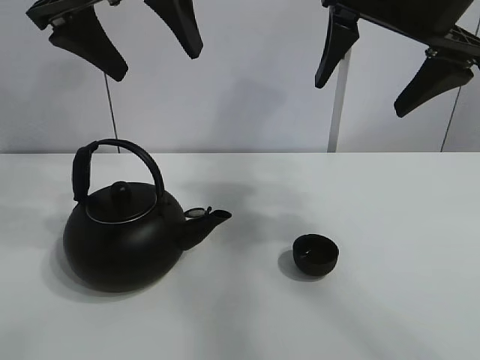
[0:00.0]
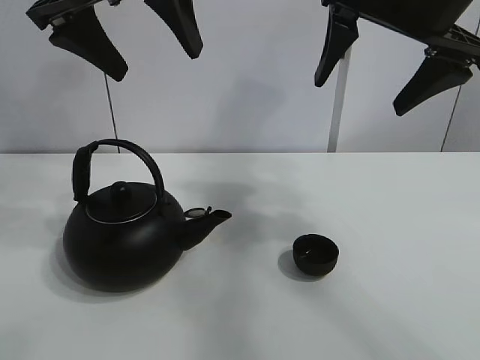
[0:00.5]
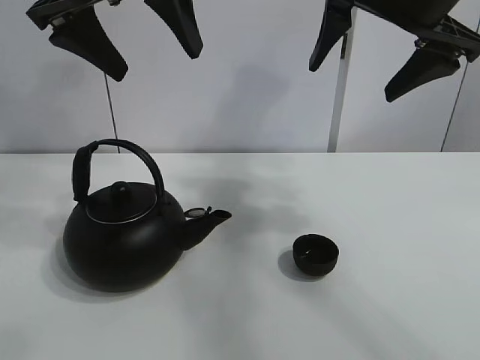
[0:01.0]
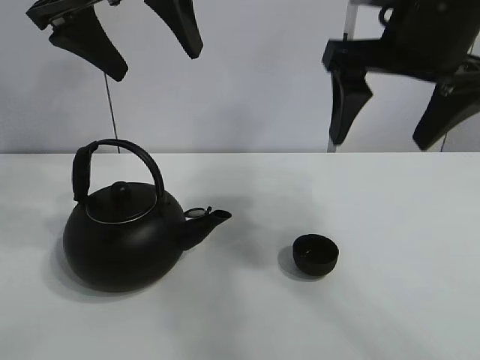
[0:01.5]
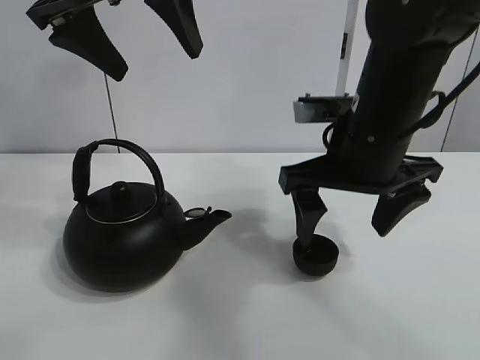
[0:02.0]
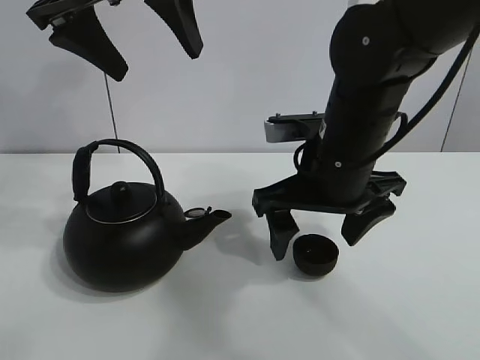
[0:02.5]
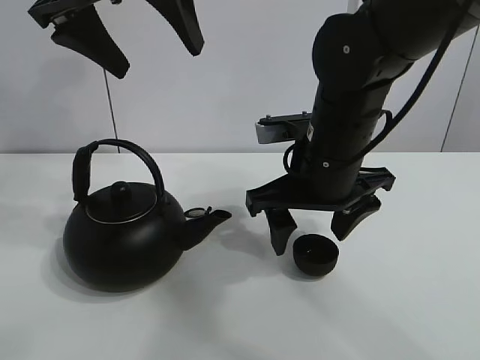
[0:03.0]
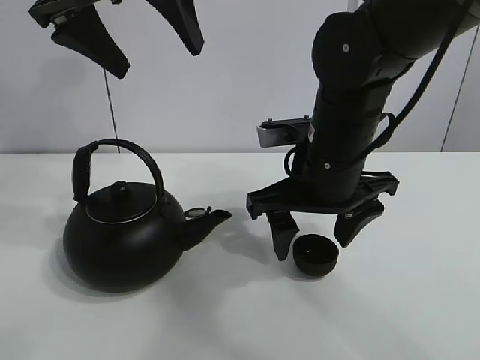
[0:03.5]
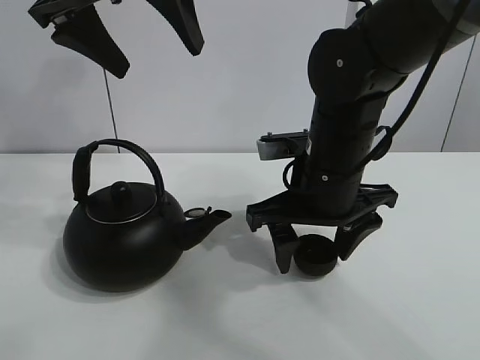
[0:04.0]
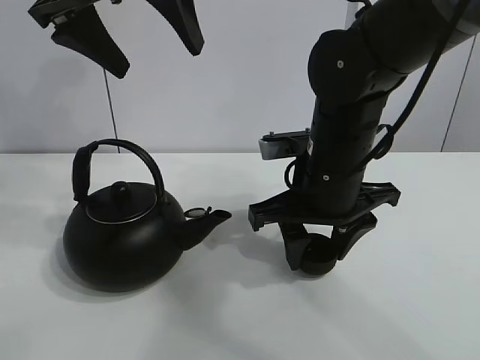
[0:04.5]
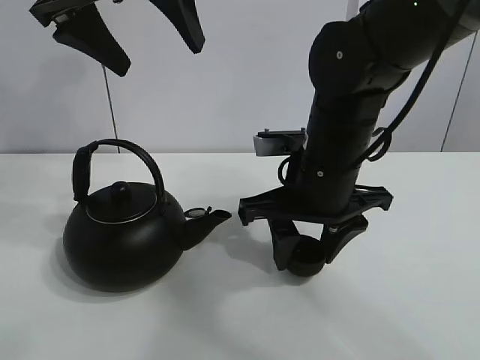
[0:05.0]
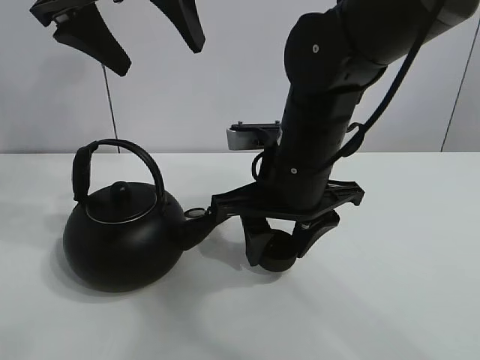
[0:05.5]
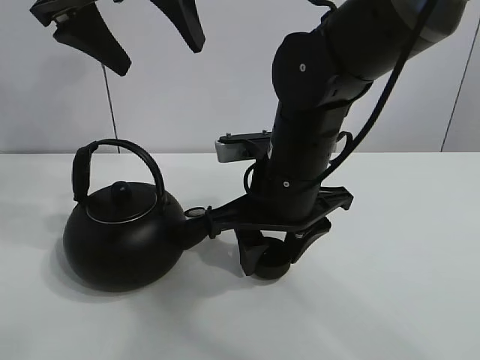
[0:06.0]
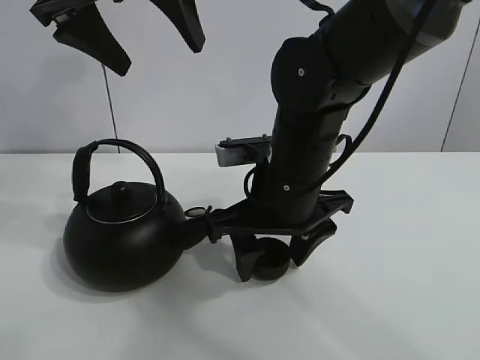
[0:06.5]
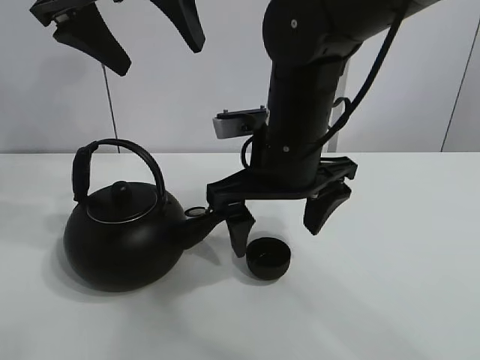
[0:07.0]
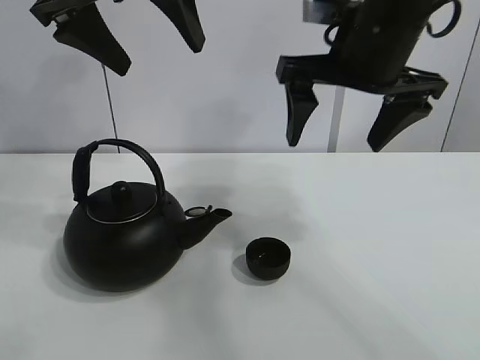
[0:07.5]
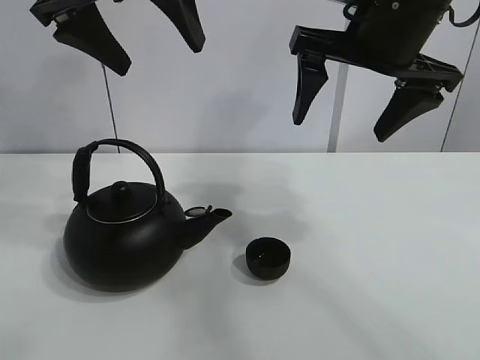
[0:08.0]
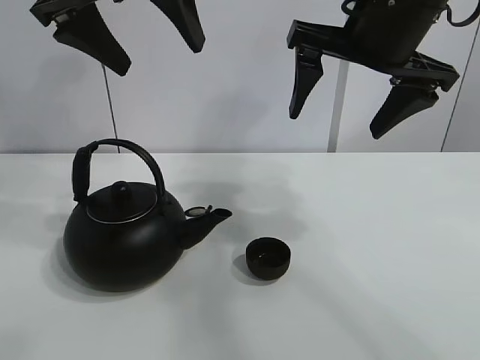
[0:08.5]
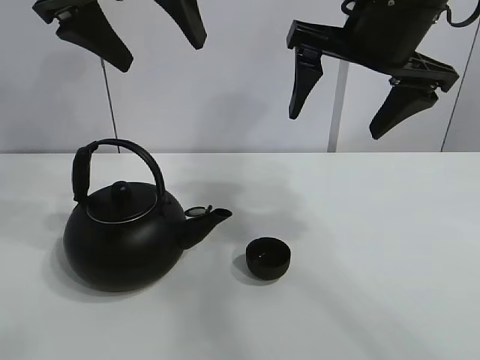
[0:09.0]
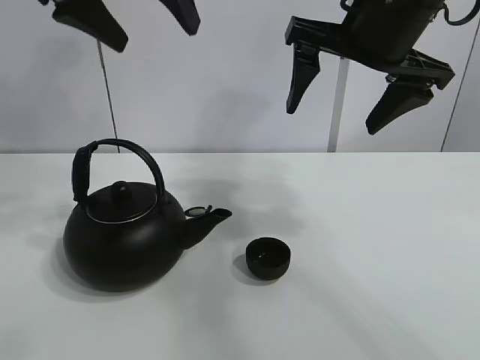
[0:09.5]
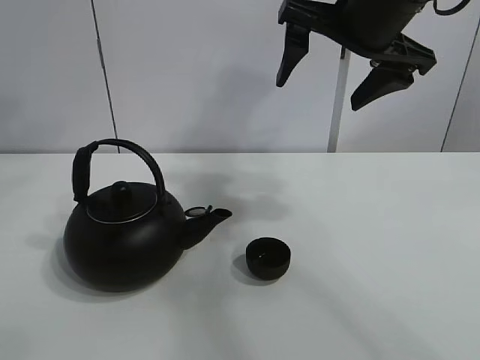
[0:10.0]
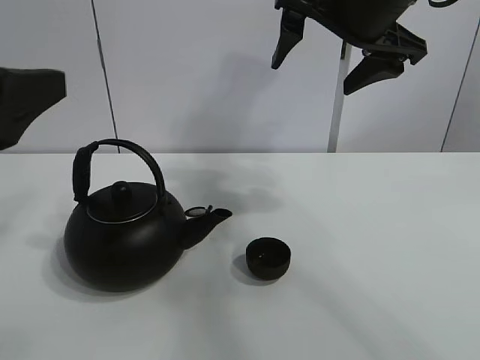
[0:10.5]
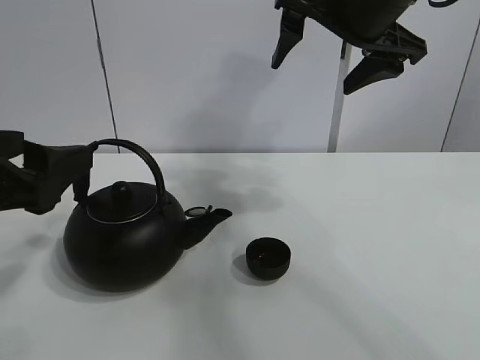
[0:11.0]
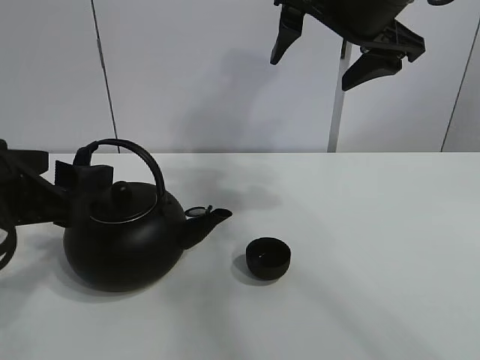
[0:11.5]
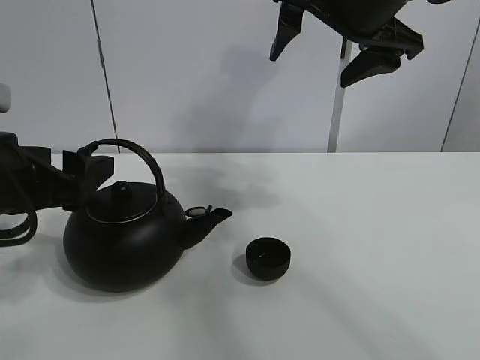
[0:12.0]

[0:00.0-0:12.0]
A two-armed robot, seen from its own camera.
Task of the whole recording: pour tea into the teacup.
Step, 0:00.0 to 0:04.0: Pick up the teacup with the right gripper.
Step, 0:04.5 to 0:06.5: Place the teacup in the center of view with the right gripper.
0:02.0 to 0:04.0: The right gripper moves approximately 5 cm, and closes.
0:04.0 to 0:06.0: The right gripper closes.
0:06.0 to 0:08.0: The right gripper goes roughly 15 cm upward and to the right, and opens up.
0:08.0 to 0:10.0: The left gripper heads backward and to the left, covering some 10 cm.
0:10.0 to 0:12.0: The left gripper shifts about 25 cm downward.

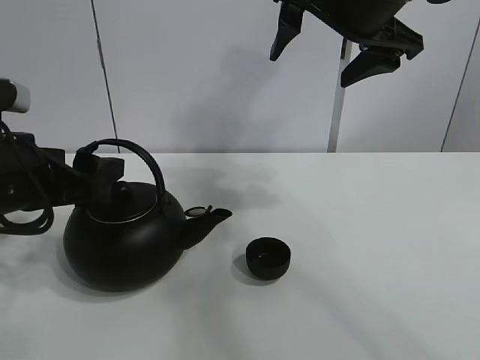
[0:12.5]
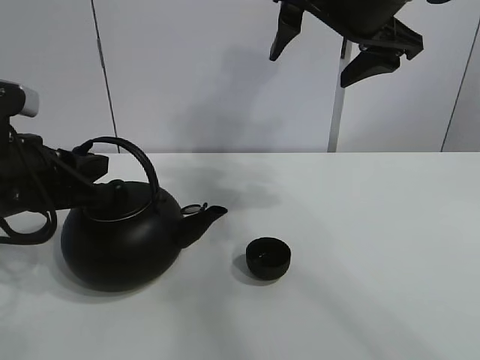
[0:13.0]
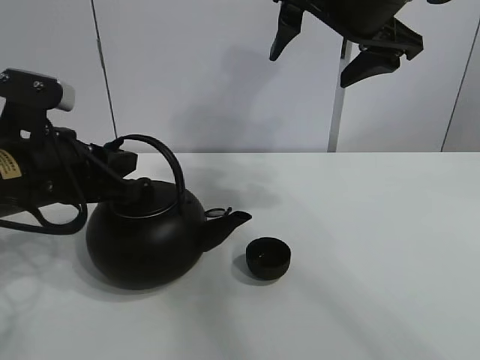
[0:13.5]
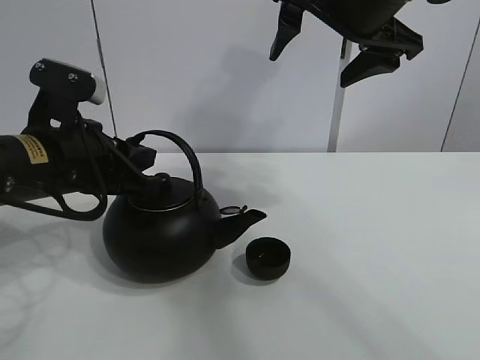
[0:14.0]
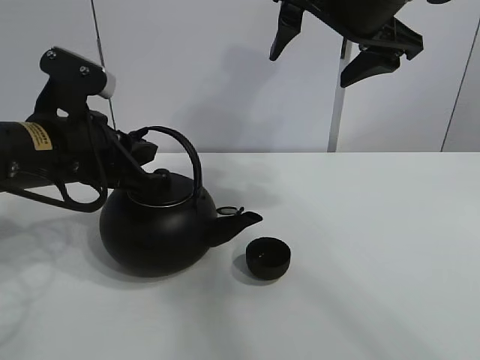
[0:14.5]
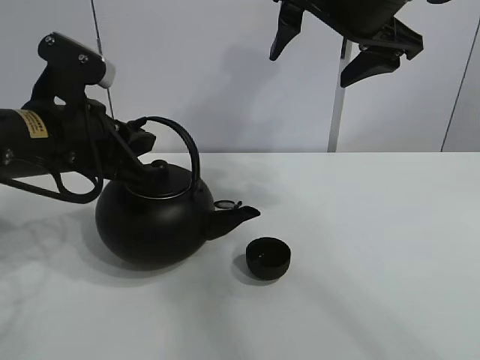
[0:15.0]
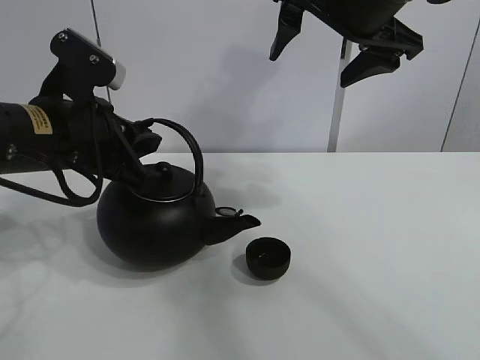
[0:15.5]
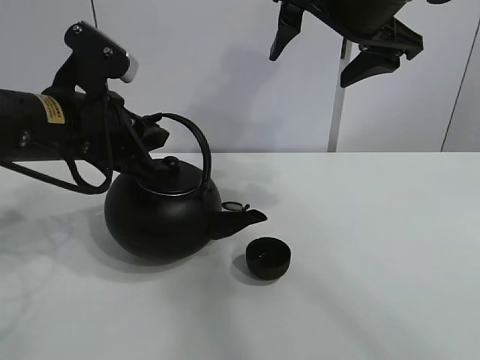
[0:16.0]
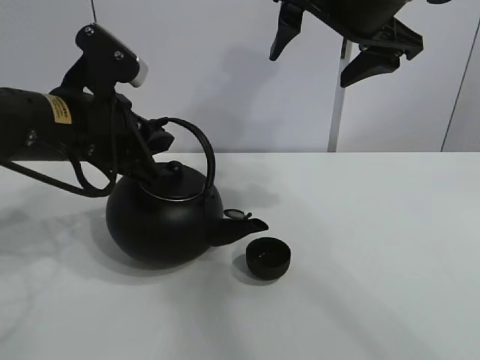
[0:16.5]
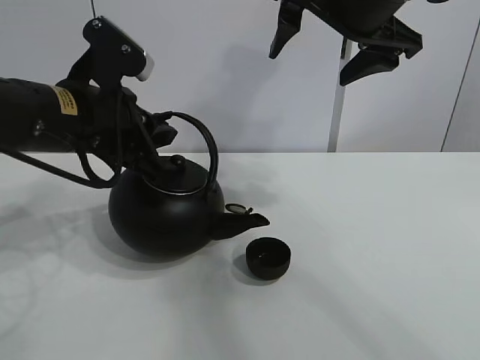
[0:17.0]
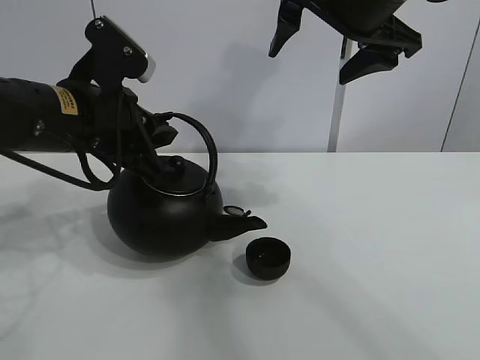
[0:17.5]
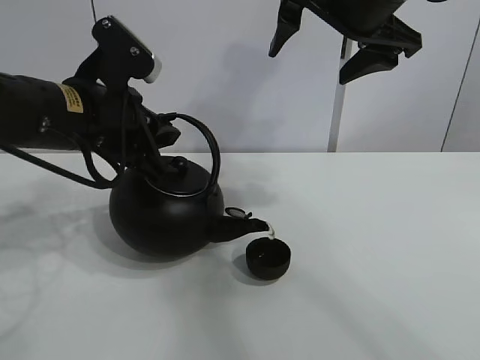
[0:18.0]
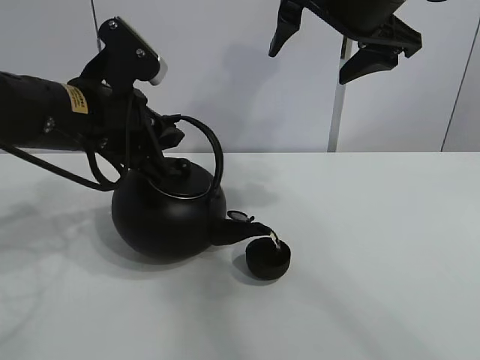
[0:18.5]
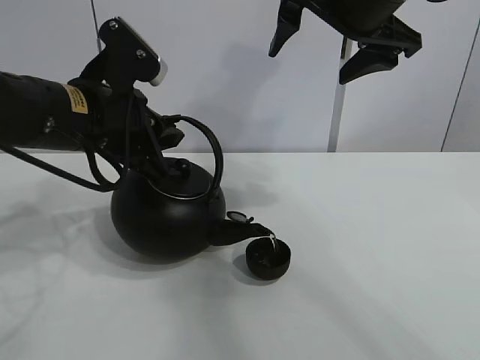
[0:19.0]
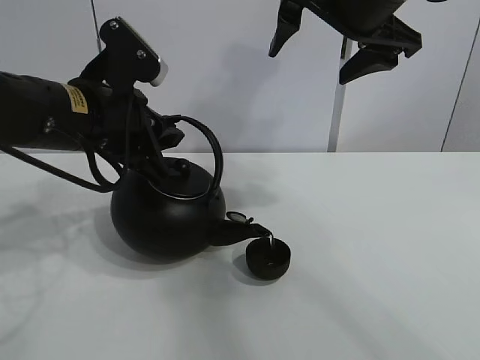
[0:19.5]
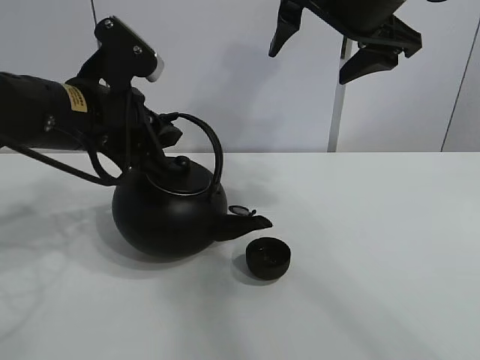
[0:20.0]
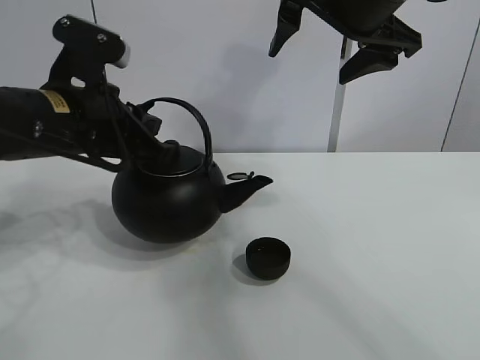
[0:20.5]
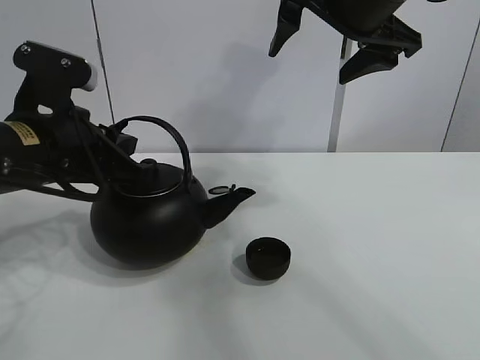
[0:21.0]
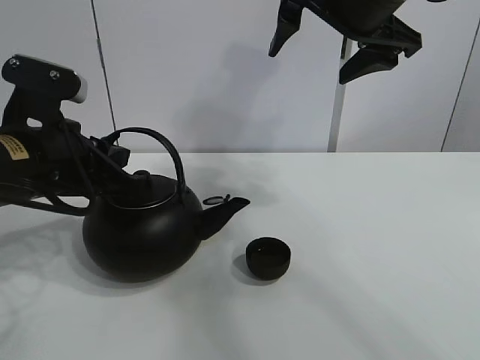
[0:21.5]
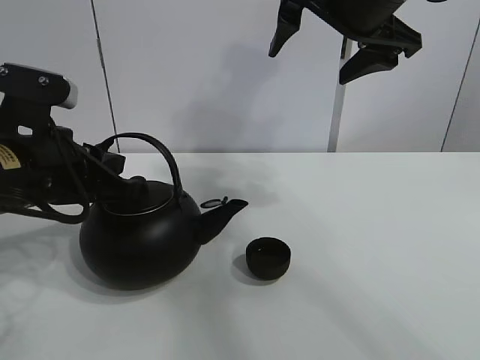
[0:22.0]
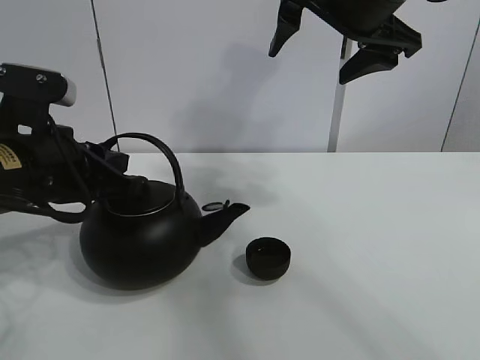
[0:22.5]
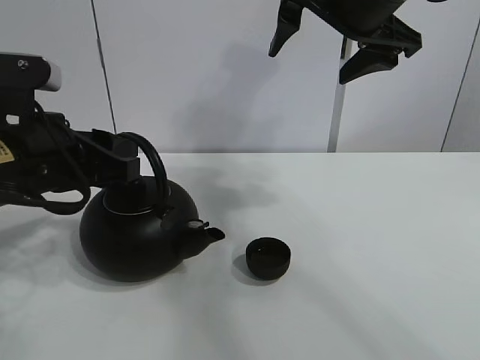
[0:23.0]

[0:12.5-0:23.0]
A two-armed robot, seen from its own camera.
Task of the whole recording: pour tea into the teacup.
Step, 0:13.0 to 0:20.0: Pour tea into the teacup with the left gripper.
0:12.5 to 0:14.5: The left gripper changes place by some 5 cm, and closes.
0:14.5 to 0:19.0: The grippers make only small movements.
0:21.0 to 0:23.0: The left gripper opens its fingers.

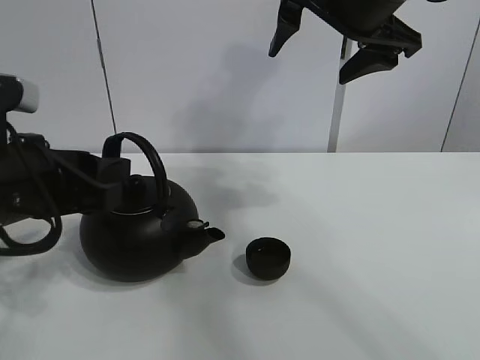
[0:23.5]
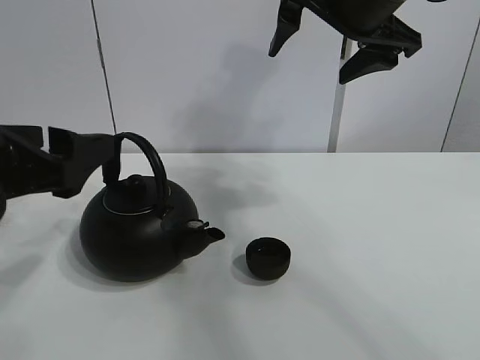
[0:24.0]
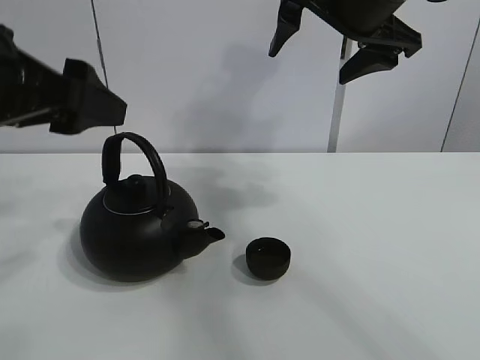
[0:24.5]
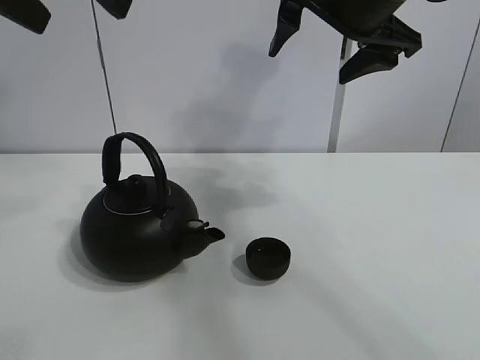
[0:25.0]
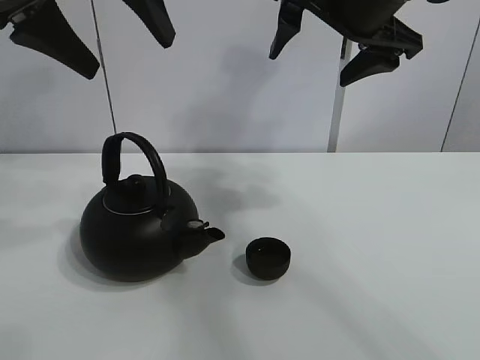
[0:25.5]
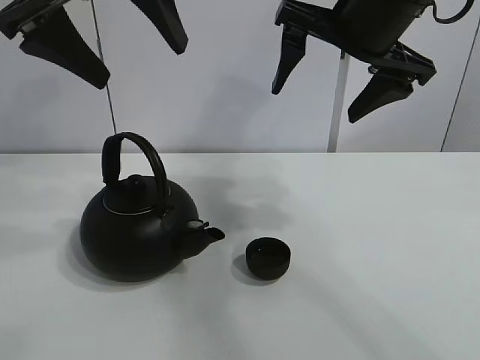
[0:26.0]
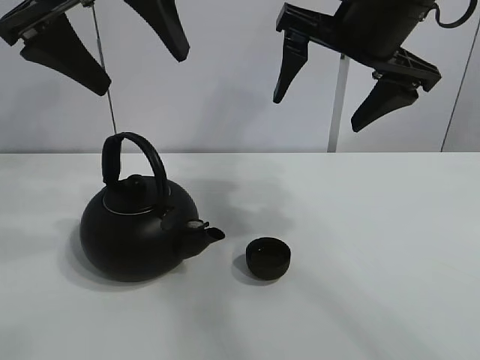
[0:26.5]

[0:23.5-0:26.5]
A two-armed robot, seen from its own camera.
Task of the whole recording: pour tea into the teacup.
0:23.5 to 0:25.0: The left gripper is displaced upward by approximately 20 cm, and opens its fingers.
0:25.0 to 0:26.5: The left gripper ends up approximately 5 cm from where it was.
